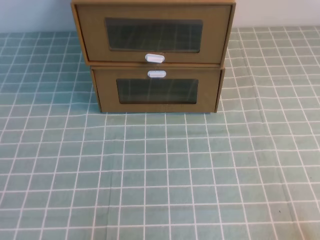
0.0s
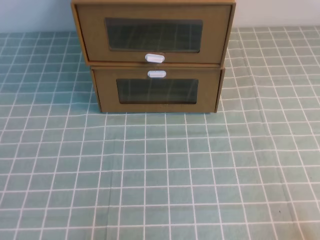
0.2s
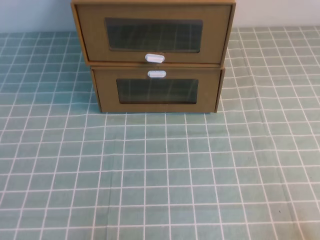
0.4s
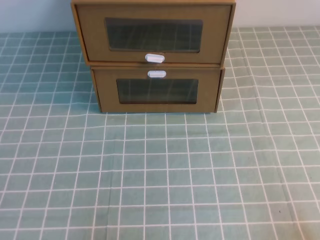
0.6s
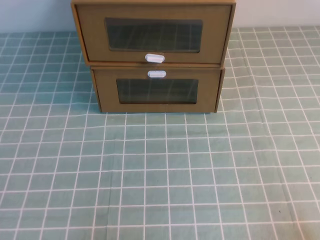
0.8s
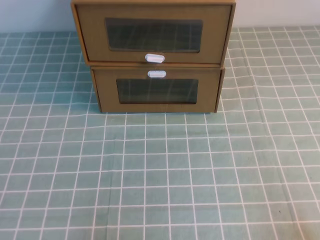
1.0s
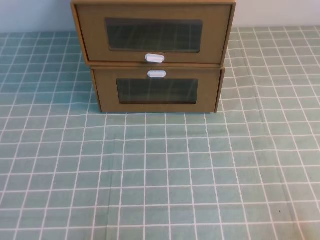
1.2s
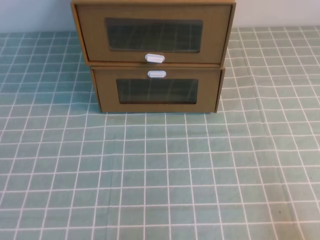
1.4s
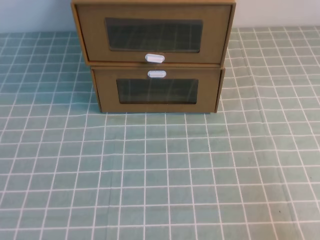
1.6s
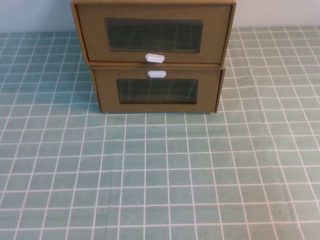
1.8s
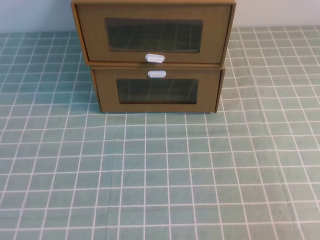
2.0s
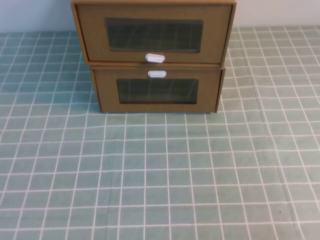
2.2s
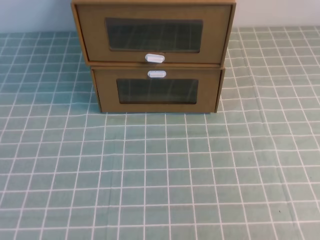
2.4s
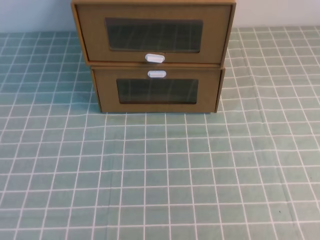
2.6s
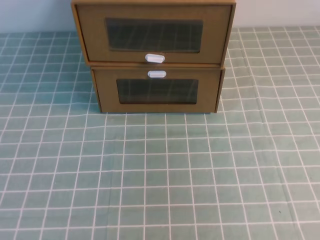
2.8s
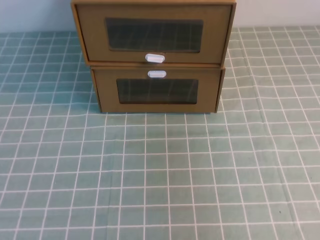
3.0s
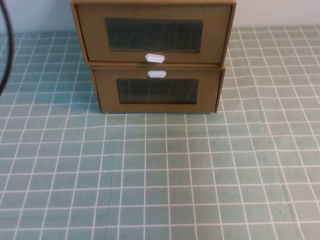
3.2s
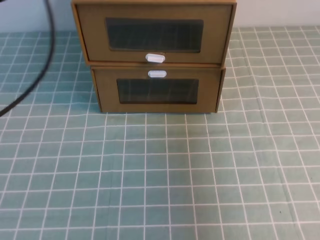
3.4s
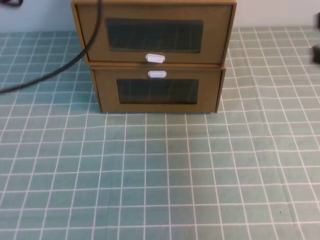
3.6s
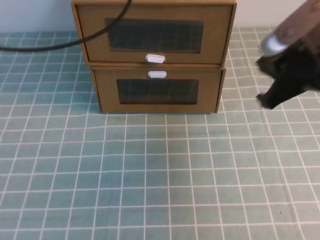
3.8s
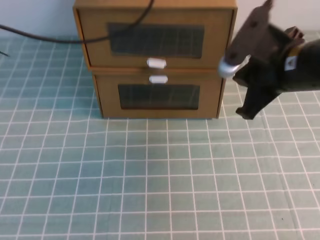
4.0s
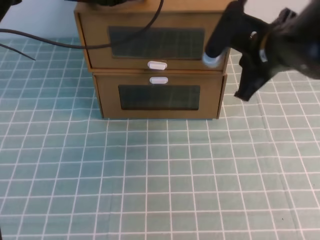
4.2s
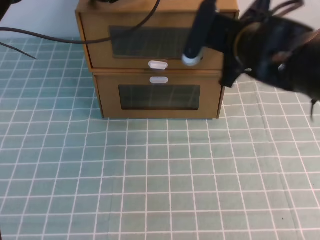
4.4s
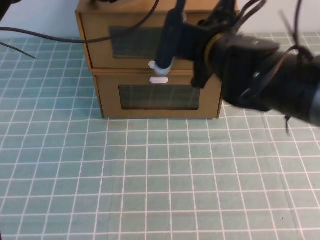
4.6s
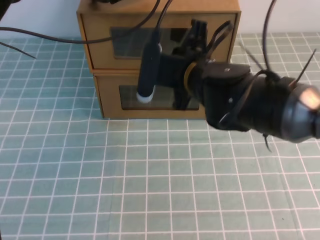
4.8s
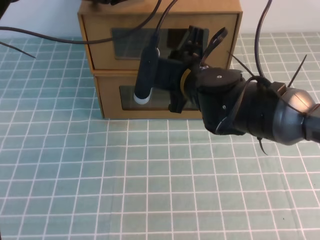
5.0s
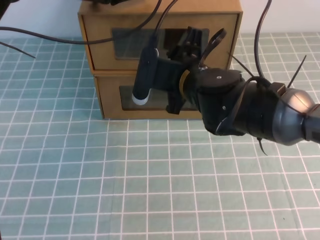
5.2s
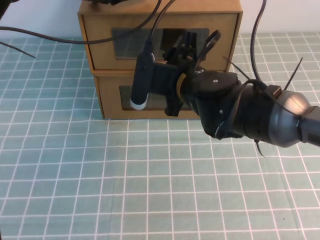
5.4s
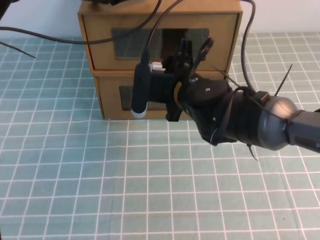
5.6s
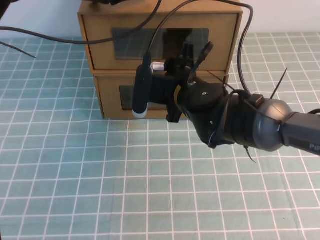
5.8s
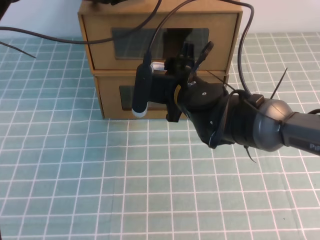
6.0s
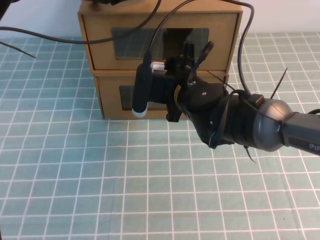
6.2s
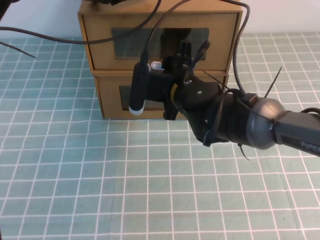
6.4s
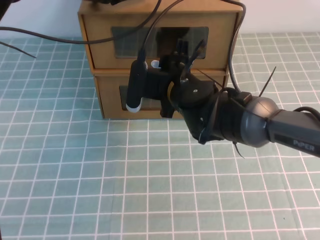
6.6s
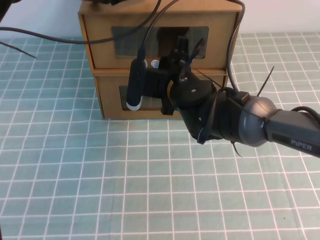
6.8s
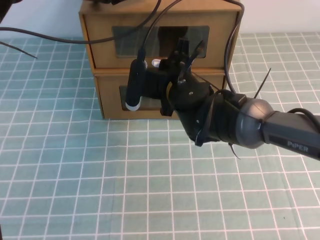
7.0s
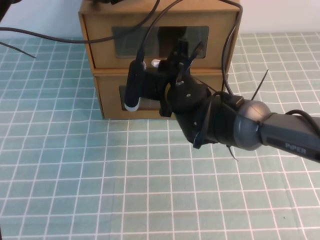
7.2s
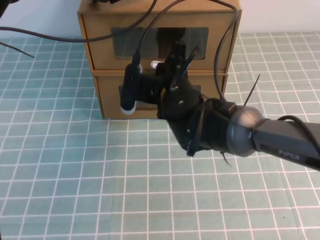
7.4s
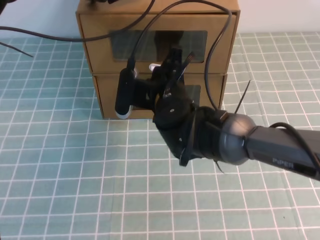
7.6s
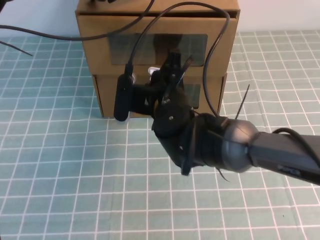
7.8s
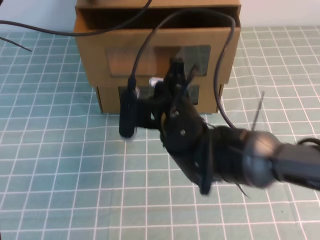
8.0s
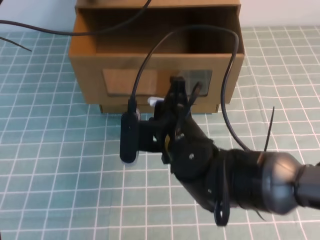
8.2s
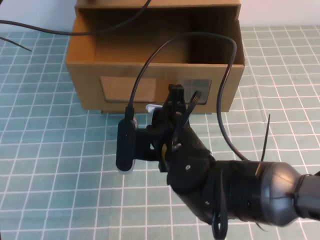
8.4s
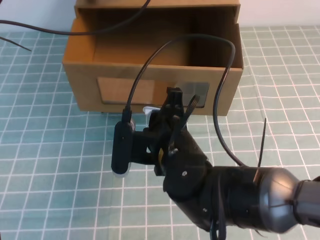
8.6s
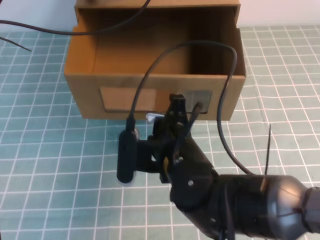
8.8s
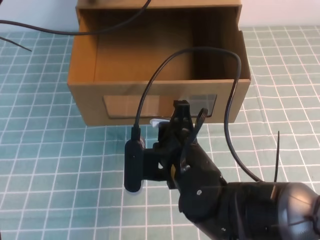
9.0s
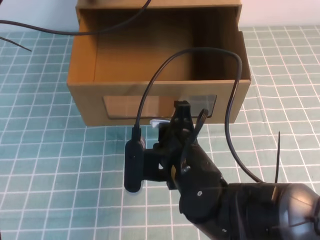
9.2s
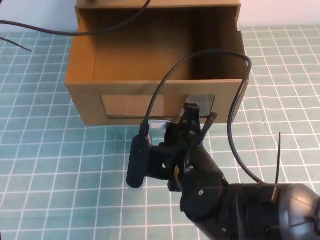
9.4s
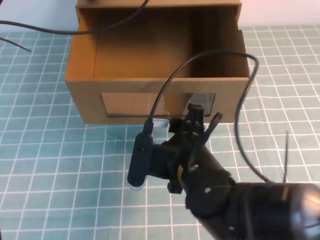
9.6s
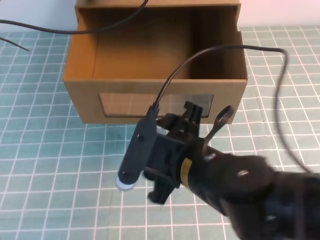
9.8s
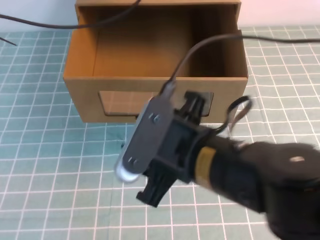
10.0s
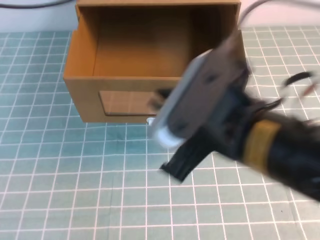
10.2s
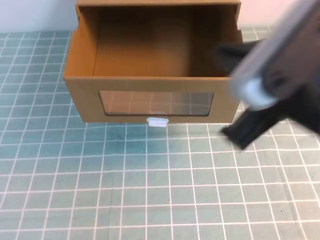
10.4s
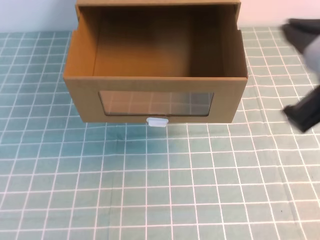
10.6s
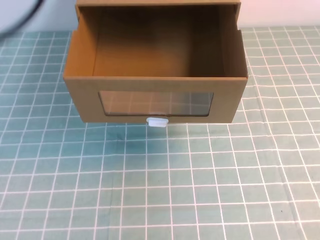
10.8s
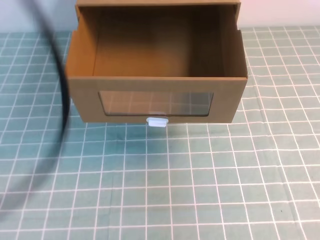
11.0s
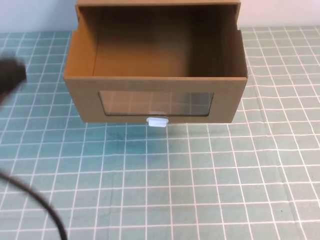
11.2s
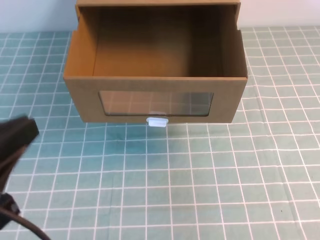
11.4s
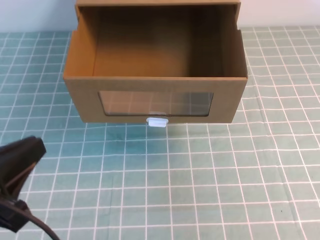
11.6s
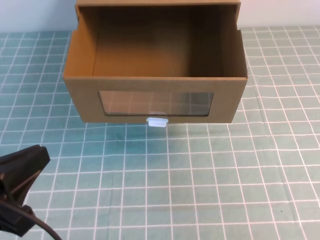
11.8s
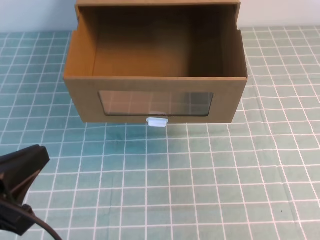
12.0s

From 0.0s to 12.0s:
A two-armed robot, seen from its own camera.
Task of the whole recording: open the shoebox on the cyan tablecloth.
From 3.0s to 4.4s: The left gripper heads forward and to the right, covering some 35 cm; the right gripper shifts roughly 35 cm forward, to the left and downward.
From 4.4s to 6.0s: The right gripper shifts about 10 cm to the left and downward, and opens its fingers.
From 6.0s to 7.6s: The right gripper closes up.
From 7.6s to 9.0s: The right gripper travels backward by about 10 cm.
From 9.0s to 10.4s: The left gripper is displaced upward, backward and to the left by roughly 20 cm, while the right gripper is displaced upward, to the right and backward by roughly 20 cm, and opens, then closes once more.
From 10.4s to 12.0s: The left gripper travels backward and downward by approximately 30 cm, while the right gripper shifts some 10 cm to the right.

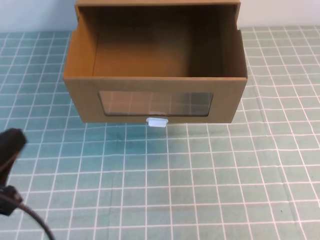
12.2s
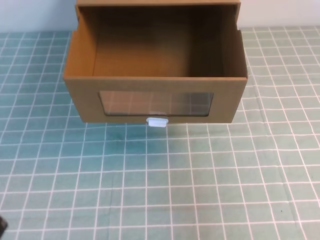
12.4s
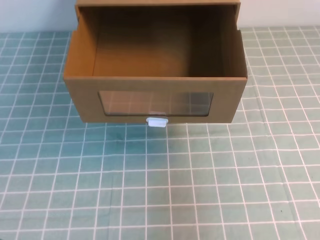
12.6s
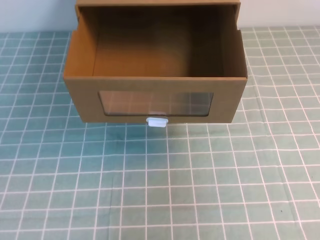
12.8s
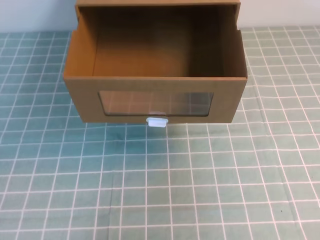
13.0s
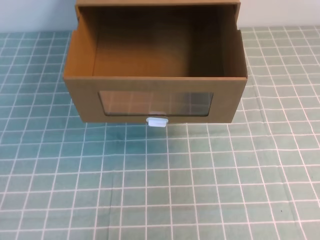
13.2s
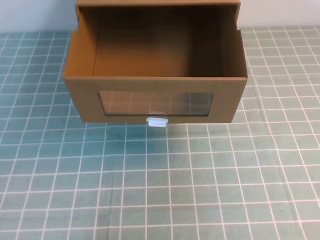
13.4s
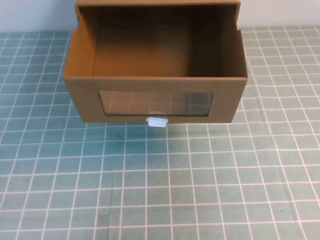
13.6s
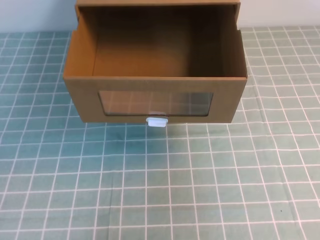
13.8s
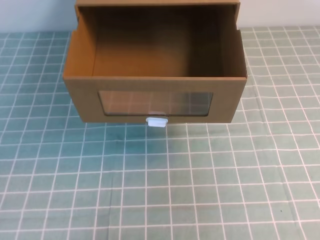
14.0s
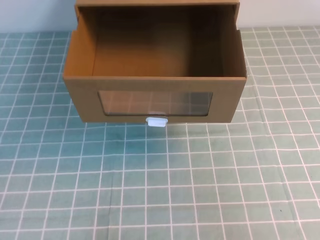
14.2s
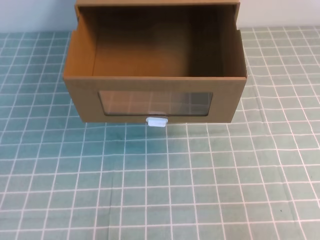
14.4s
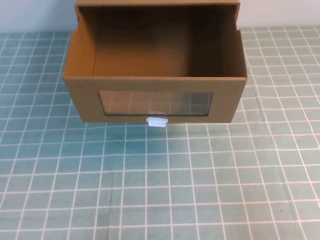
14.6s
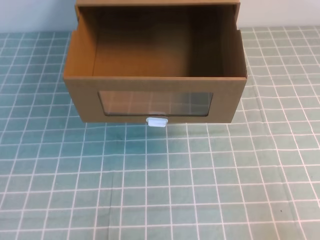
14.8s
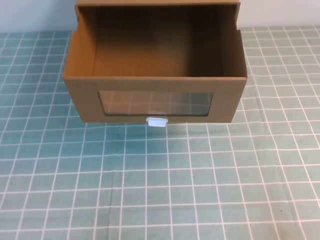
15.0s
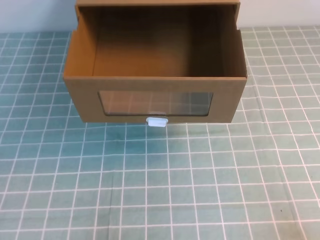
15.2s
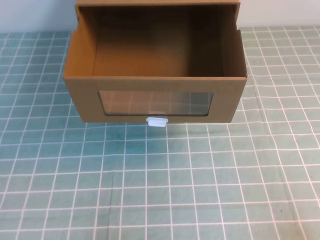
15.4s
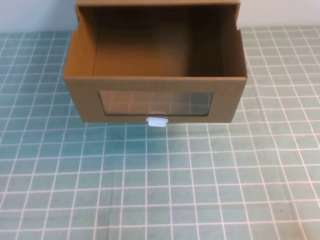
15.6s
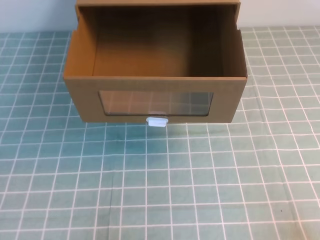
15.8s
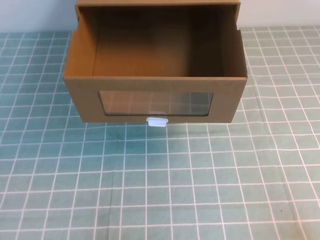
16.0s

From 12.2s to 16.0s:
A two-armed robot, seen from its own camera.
Task of the whole recording: open the shoebox on the cyan tablecloth.
Step, from 12.2s to 16.0s: Open the shoe box.
From 12.2s to 13.4s: The left gripper heads downward, covering about 15 cm.

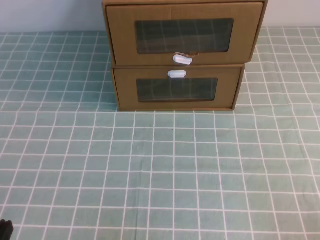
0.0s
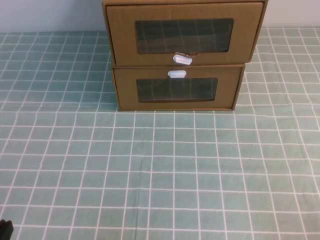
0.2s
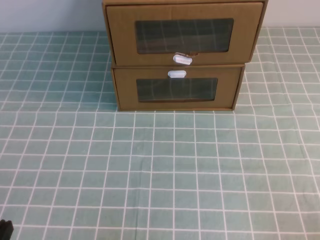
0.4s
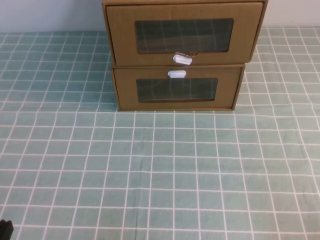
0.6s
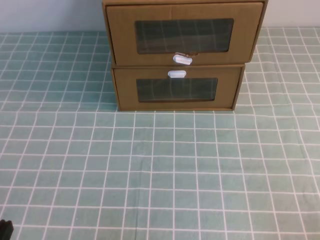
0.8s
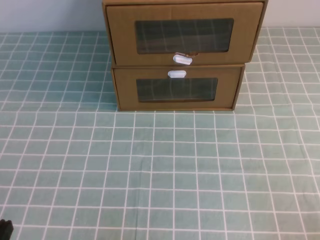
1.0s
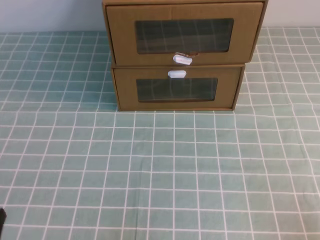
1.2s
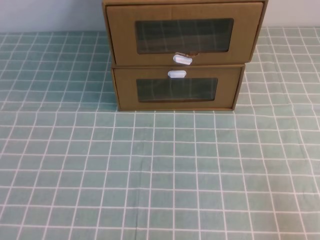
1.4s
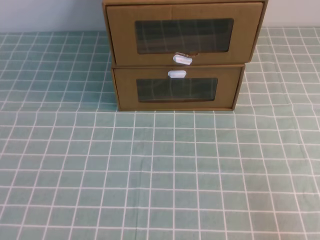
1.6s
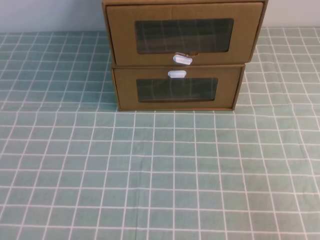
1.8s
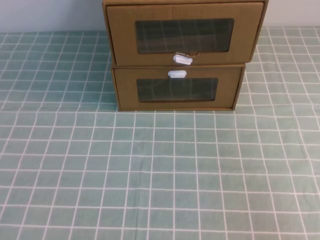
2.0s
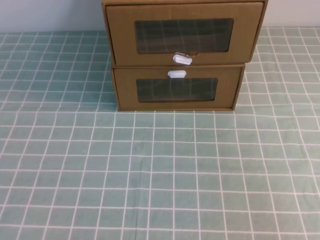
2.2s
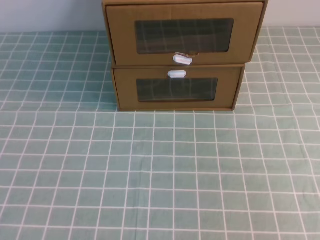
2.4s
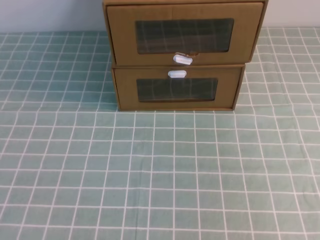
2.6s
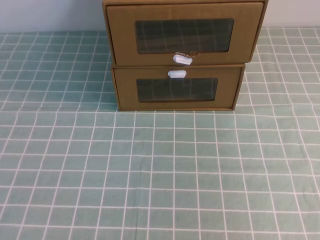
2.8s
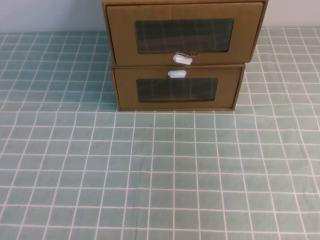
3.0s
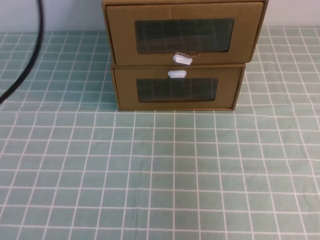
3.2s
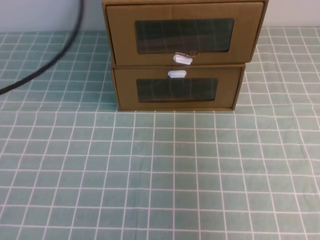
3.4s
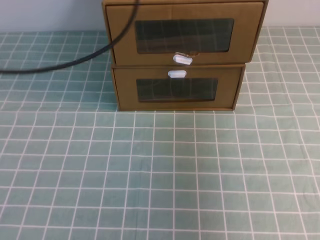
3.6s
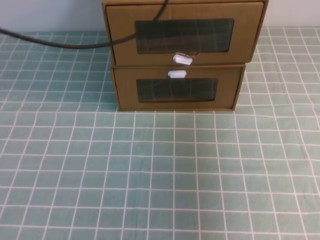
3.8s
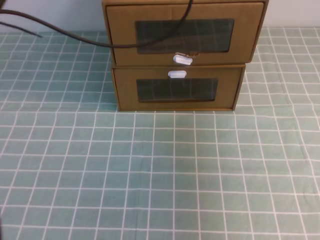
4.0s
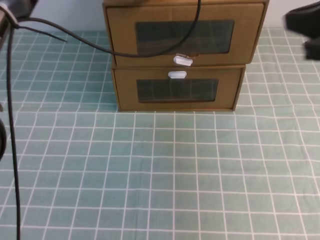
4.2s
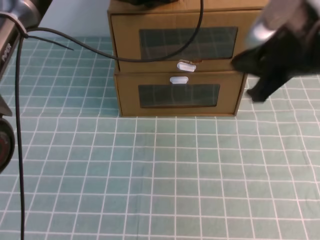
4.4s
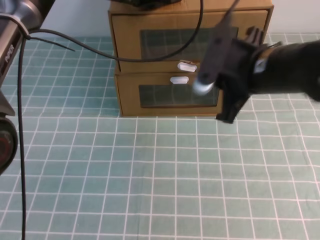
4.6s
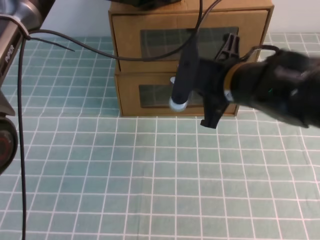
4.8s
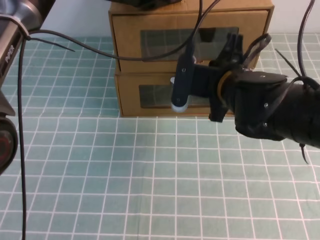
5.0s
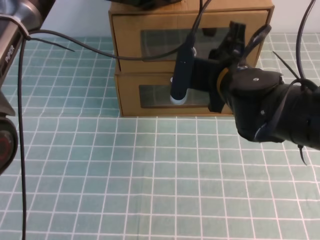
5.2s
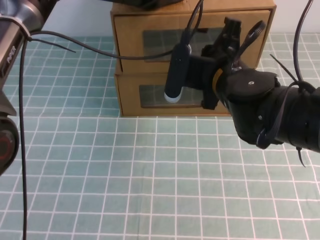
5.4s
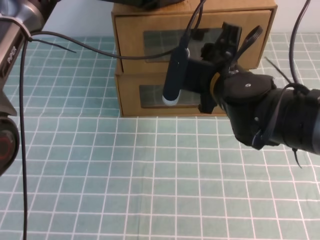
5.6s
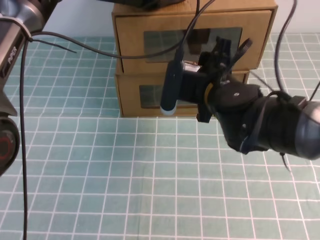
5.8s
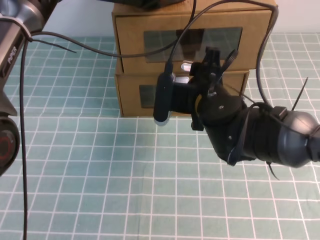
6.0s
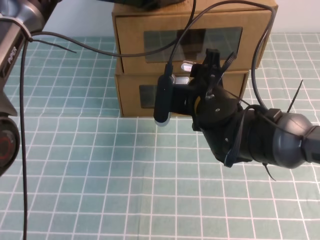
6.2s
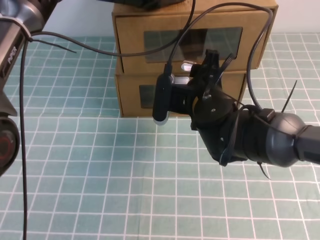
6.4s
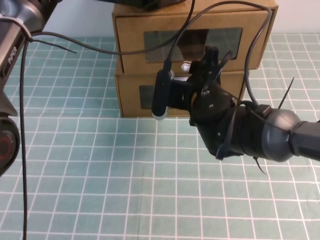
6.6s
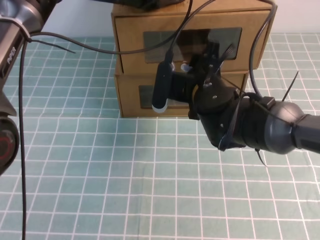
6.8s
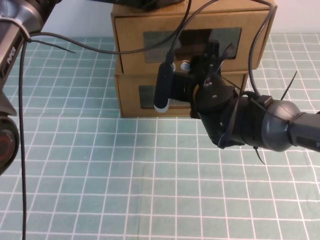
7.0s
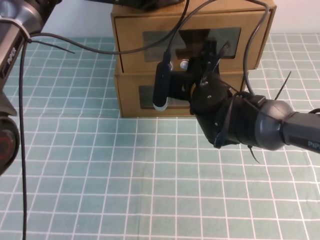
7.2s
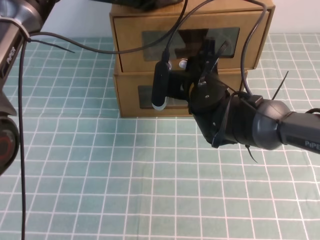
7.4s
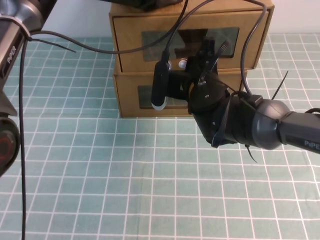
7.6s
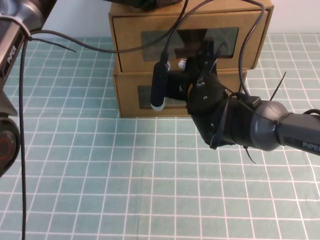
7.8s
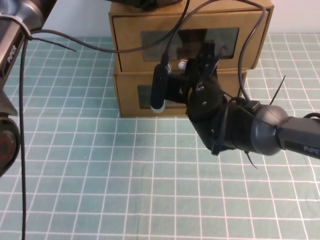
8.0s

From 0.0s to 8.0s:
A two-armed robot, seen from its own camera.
Task of the whole recording: open the shoebox on the cyan tablecloth.
From 1.6s to 3.2s: The left gripper travels upward and forward by roughly 30 cm. The right gripper moves upward, roughly 25 cm.
From 3.2s to 4.8s: The left gripper moves forward, to the right and downward, some 35 cm; the right gripper heads to the left, forward and downward, covering about 30 cm.
From 4.8s to 6.4s: The right gripper is displaced downward and to the left by some 10 cm, and opens its fingers.
From 6.4s to 8.0s: The right gripper closes up.
